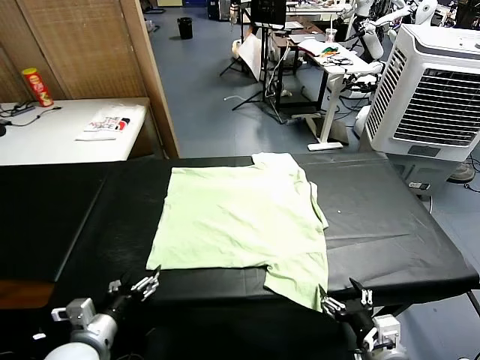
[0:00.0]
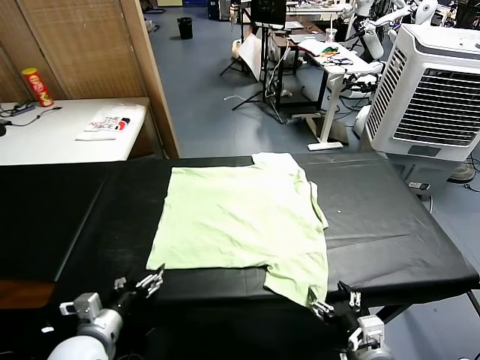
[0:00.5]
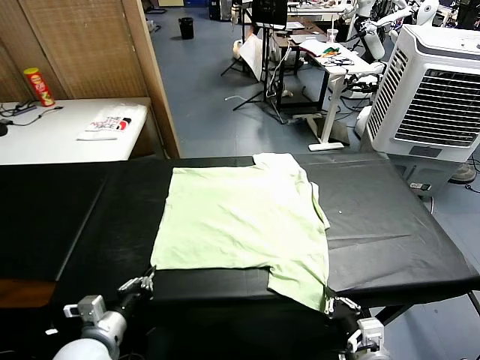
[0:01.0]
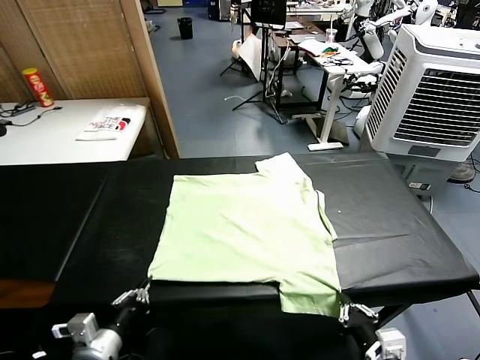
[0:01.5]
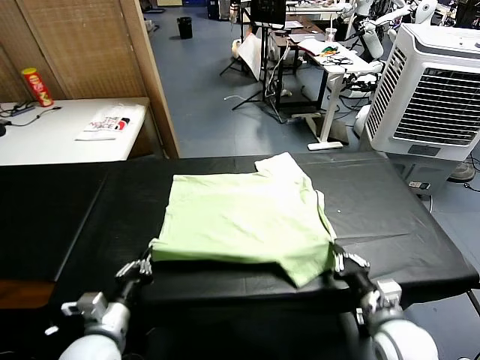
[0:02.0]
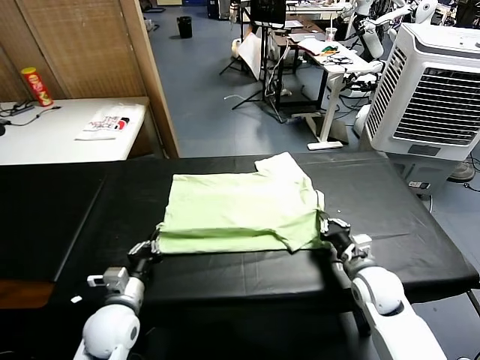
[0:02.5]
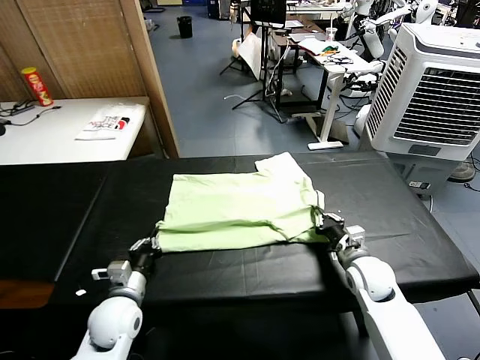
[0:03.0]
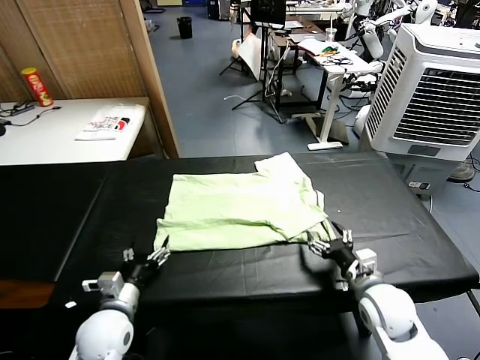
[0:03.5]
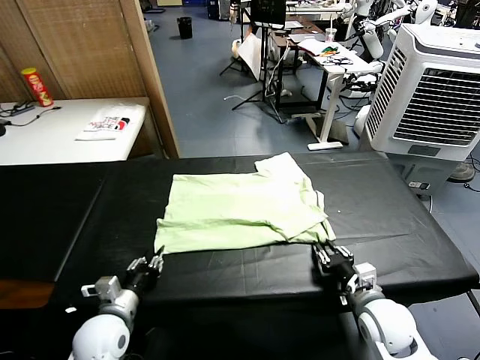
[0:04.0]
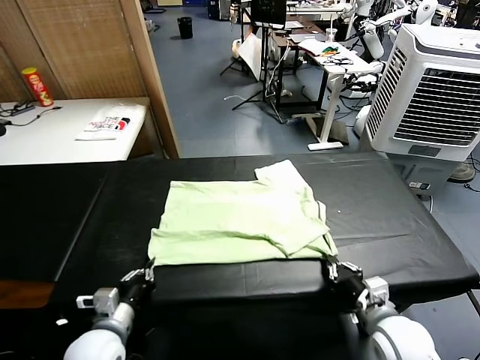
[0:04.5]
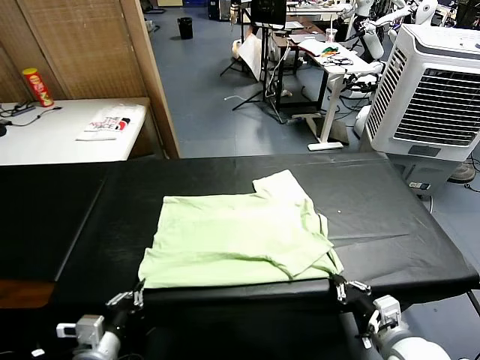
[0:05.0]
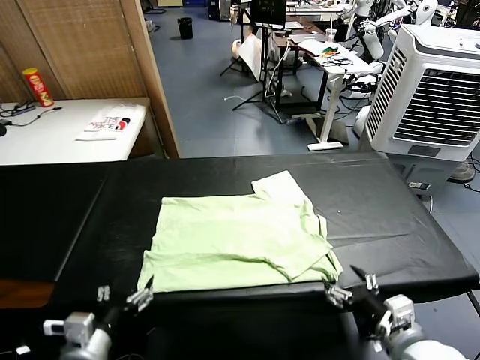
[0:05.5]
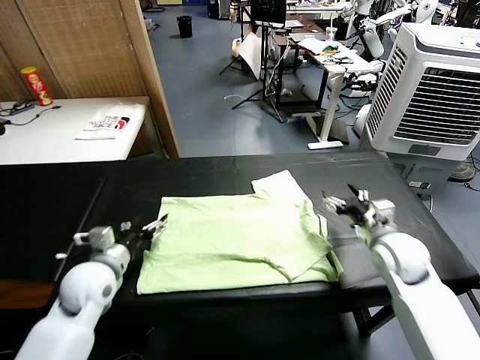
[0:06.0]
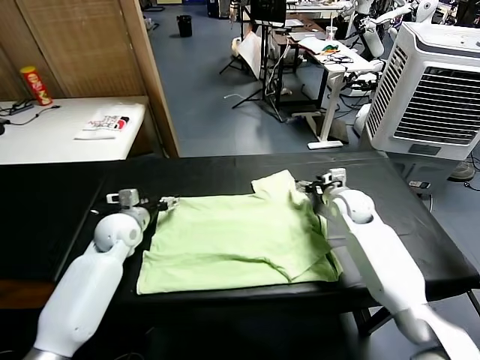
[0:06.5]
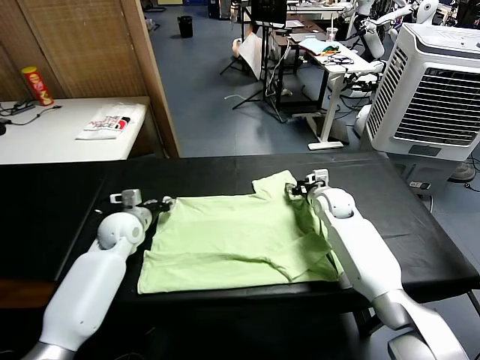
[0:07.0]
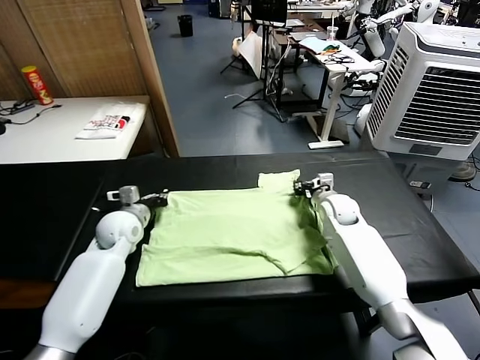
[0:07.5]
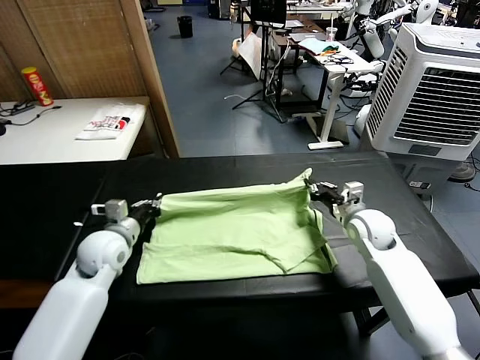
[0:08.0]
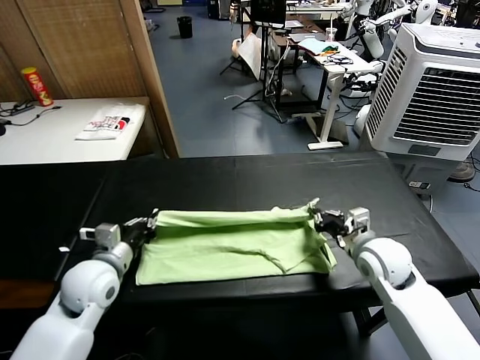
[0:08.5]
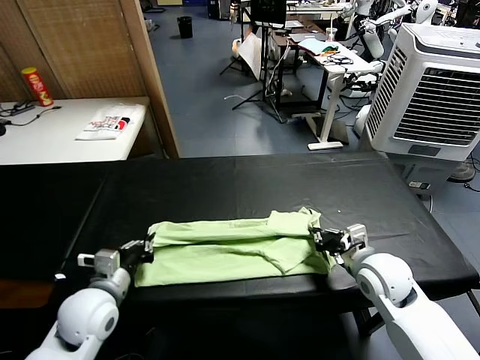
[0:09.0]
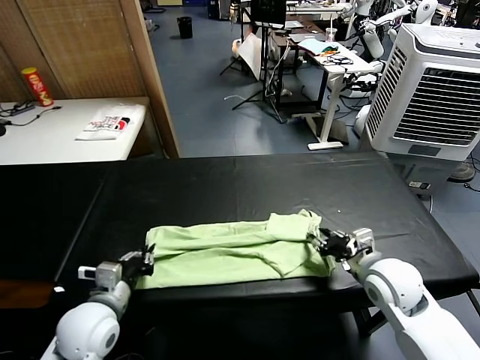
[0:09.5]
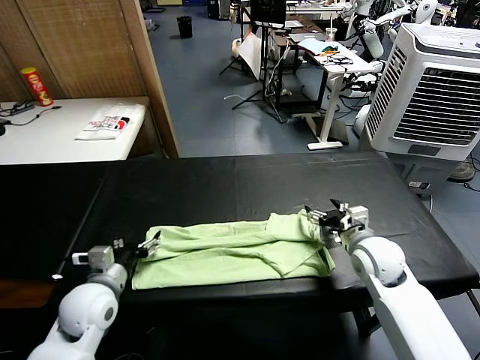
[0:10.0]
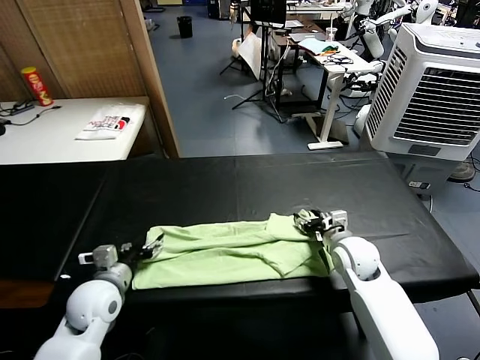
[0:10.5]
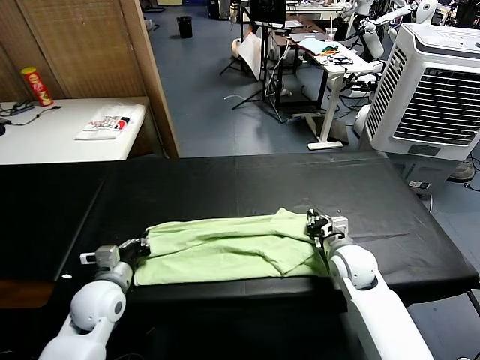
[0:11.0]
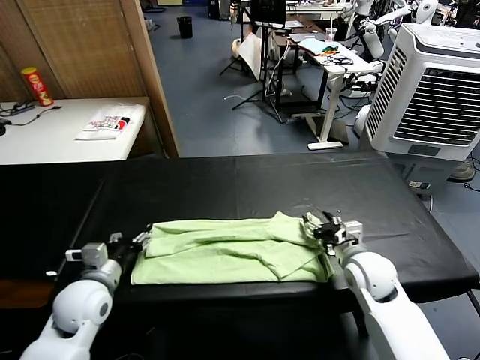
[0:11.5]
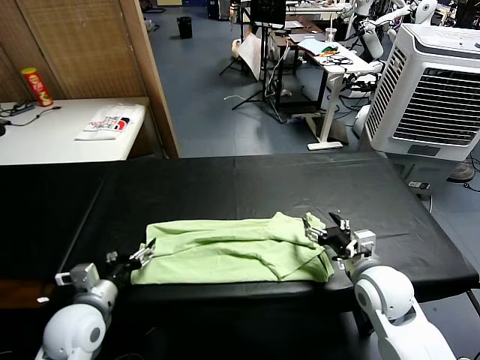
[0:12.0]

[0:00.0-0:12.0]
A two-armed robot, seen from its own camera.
Task of the whole recording: fold and organize the clothes.
Step, 0:00.0 to 0:01.0: use both grippers simultaneously to clamp the lower edge of the clothing fabric.
Step, 0:01.5 to 0:03.0: use both grippers to drag the lower edge of the fabric forward and fold it over the upper edge.
Step, 0:03.5 to 0:05.0: Drag the clothes downward with both gripper.
Step, 0:05.5 to 0:07.0: use both grippers simultaneously to clamp the upper edge of the clothing fabric.
Step, 0:07.5 to 0:09.5: use both grippers to drag the upper edge of the fabric backward and fold it over the lower edge.
0:02.0 to 0:04.0: The right gripper travels forward and back again, some 10 cm each way, and opens and closes again, while the left gripper ends up about 5 cm from where it was, and opens, then closes once more.
0:04.0 to 0:06.0: Both grippers travel together forward and upward, approximately 15 cm. The right gripper opens. Meanwhile the left gripper opens.
0:06.0 to 0:08.0: The left gripper heads forward, covering roughly 5 cm, and closes up. Meanwhile the right gripper moves some 15 cm forward and comes back, and closes up.
0:08.0 to 0:10.0: The left gripper shifts about 10 cm backward, and opens up; the right gripper opens its fingers.
0:10.0 to 0:12.0: The right gripper goes some 10 cm backward, and closes, then reopens; the left gripper closes, then reopens.

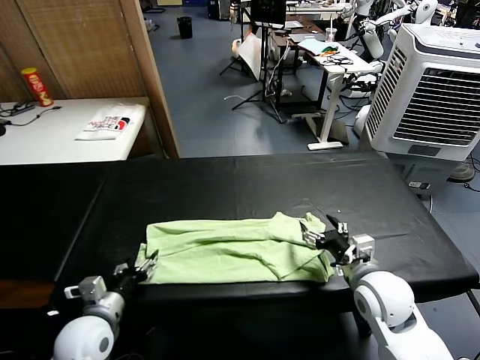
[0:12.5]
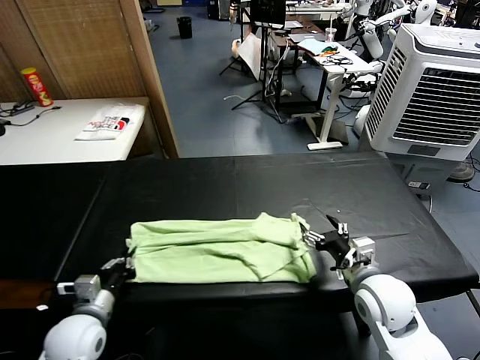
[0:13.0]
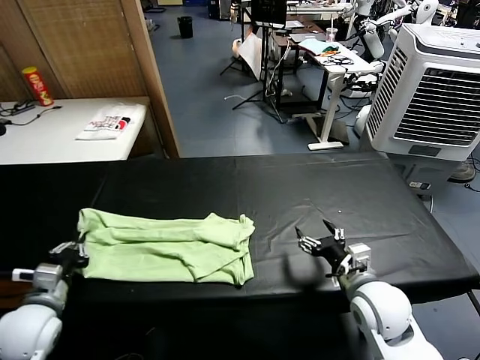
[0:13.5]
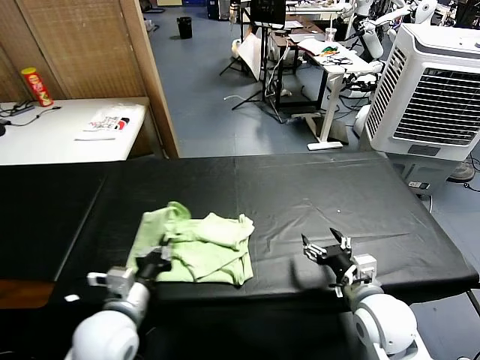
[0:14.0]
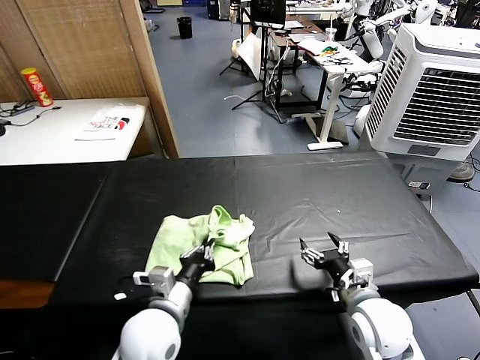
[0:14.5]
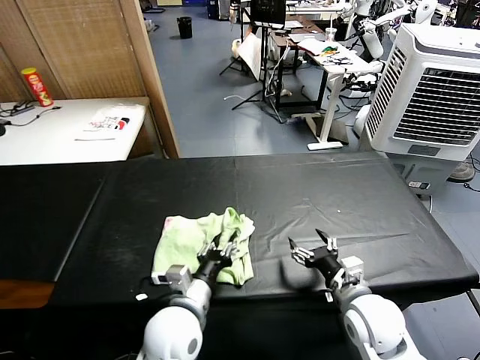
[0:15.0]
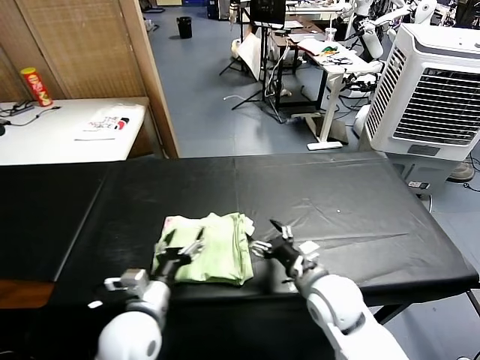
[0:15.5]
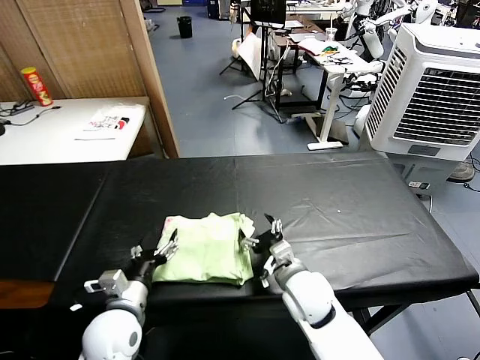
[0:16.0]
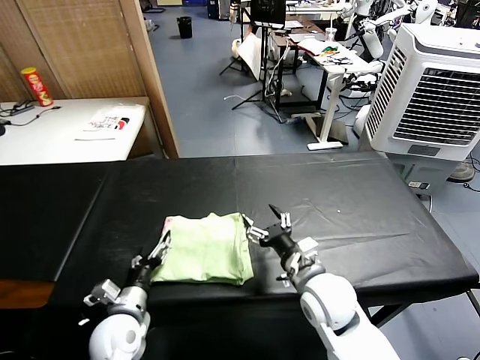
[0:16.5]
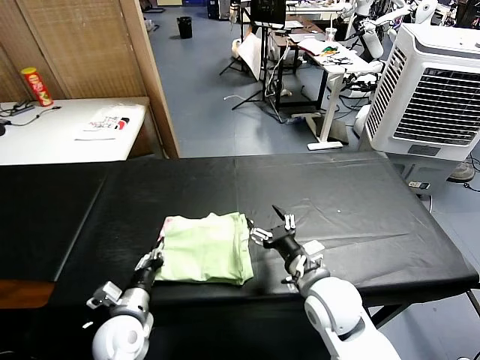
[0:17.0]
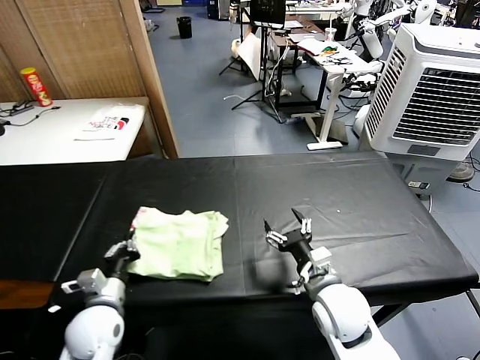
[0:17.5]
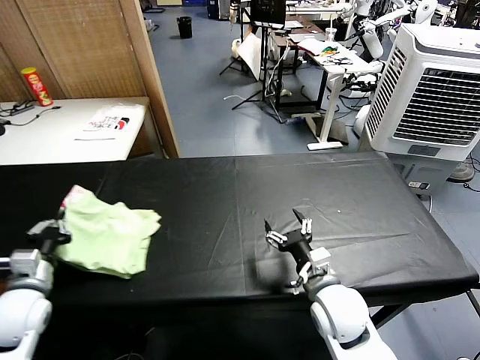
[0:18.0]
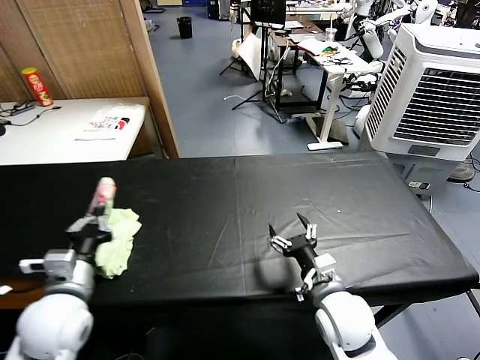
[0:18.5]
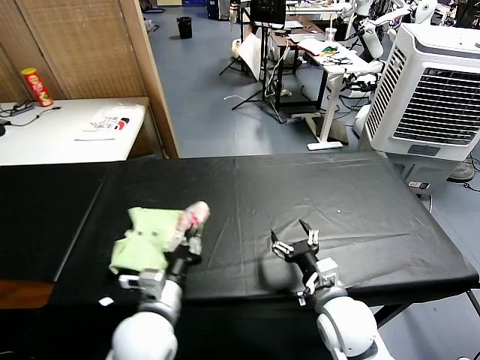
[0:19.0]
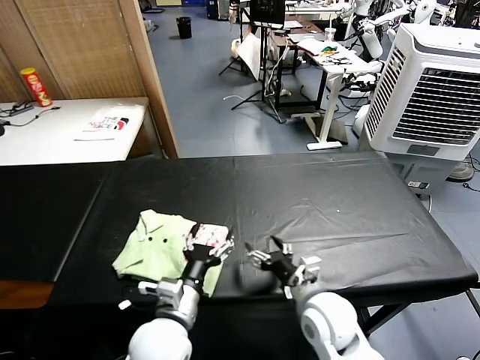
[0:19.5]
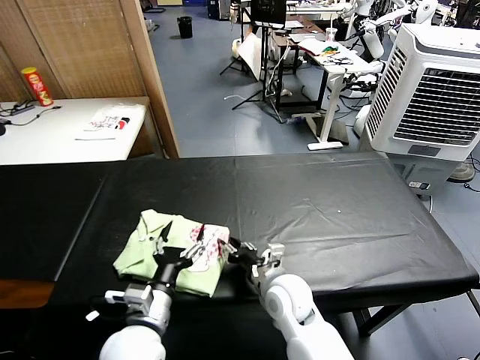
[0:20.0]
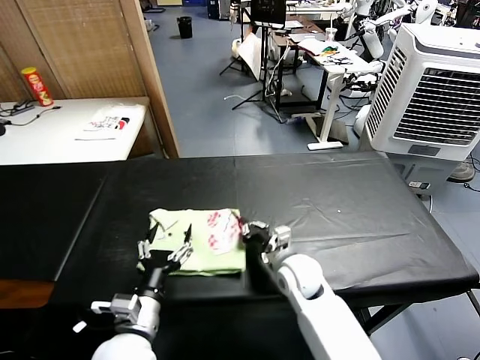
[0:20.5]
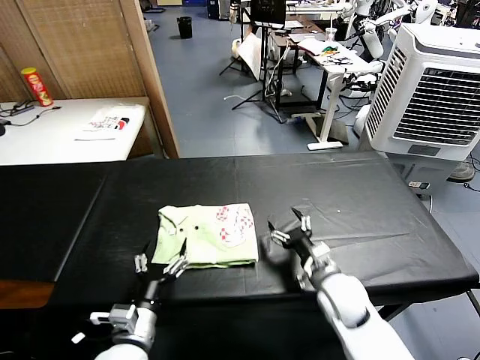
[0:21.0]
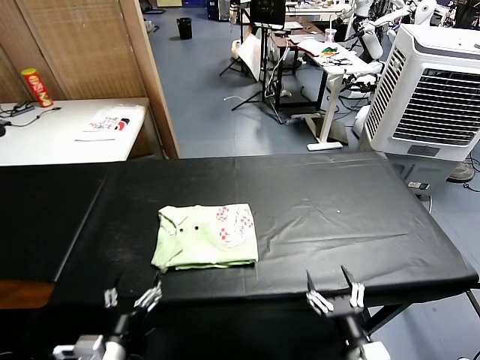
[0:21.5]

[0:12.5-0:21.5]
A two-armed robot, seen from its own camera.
Task of the whole recording: fold and organize the clothes.
Step, 0:13.0 to 0:15.0: use the left gripper to drag the left edge of the fabric to the left and folds it over the right edge.
Step, 0:15.5 to 0:19.0: Flip the folded clothes over with left gripper.
Step, 0:19.5 to 0:20.5: Drag the clothes to the center of the table.
0:12.5 to 0:14.5: The left gripper shifts approximately 15 cm to the right, and closes; the right gripper ends up roughly 5 cm from where it was.
0:14.5 to 0:17.0: The right gripper moves to the left, approximately 10 cm. The left gripper shifts about 15 cm to the left and downward, and opens, then closes again.
0:17.0 to 0:19.5: The left gripper heads to the right and upward, covering approximately 15 cm, and opens.
0:19.5 to 0:21.5: The left gripper travels to the left and backward by about 15 cm. Meanwhile the right gripper moves backward and to the right, about 15 cm, and closes, then opens again.
